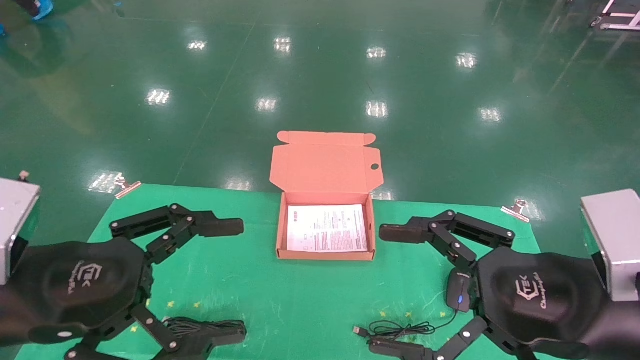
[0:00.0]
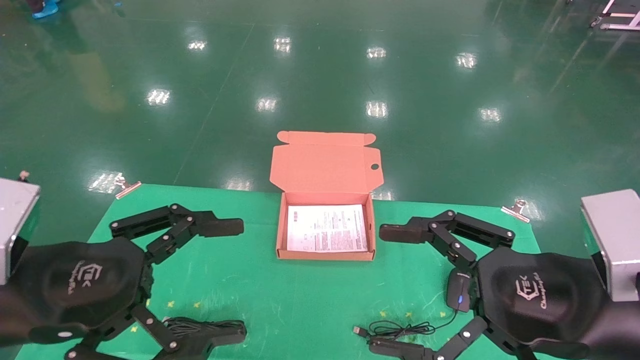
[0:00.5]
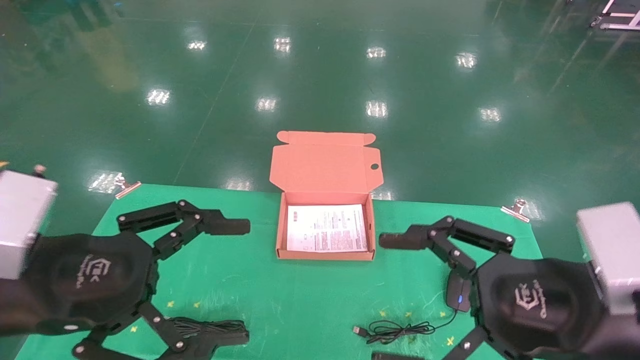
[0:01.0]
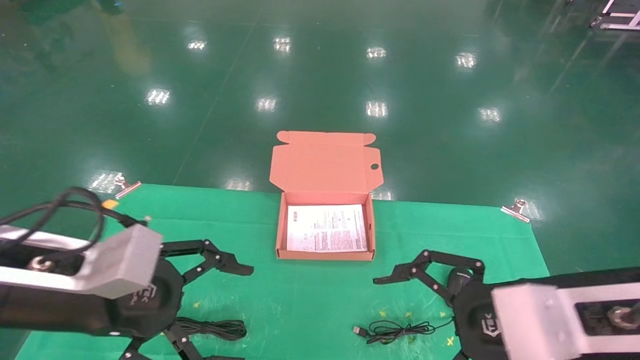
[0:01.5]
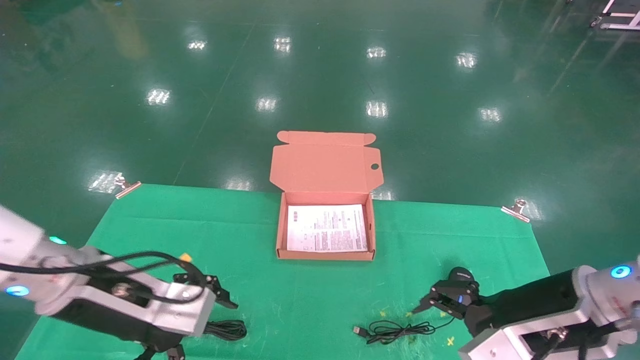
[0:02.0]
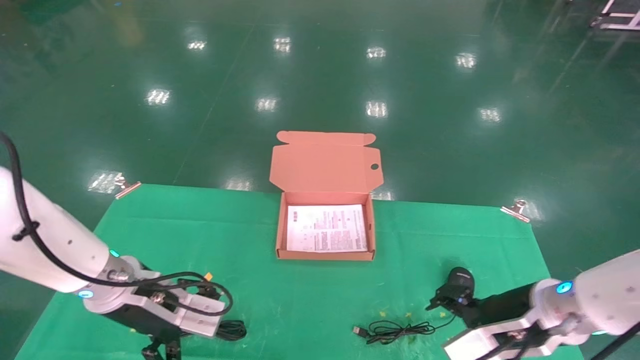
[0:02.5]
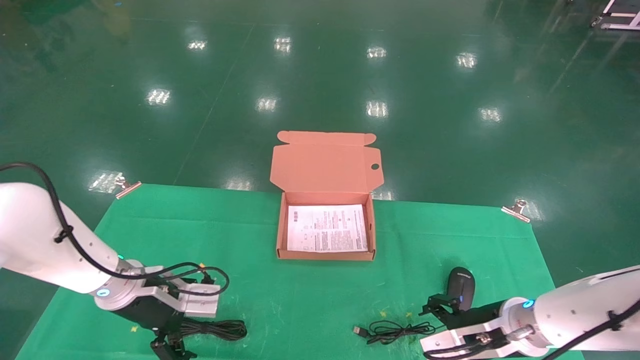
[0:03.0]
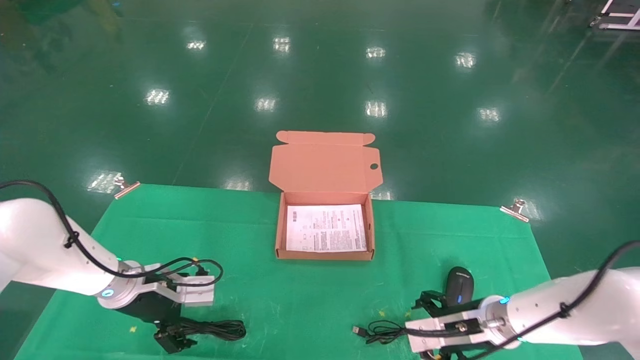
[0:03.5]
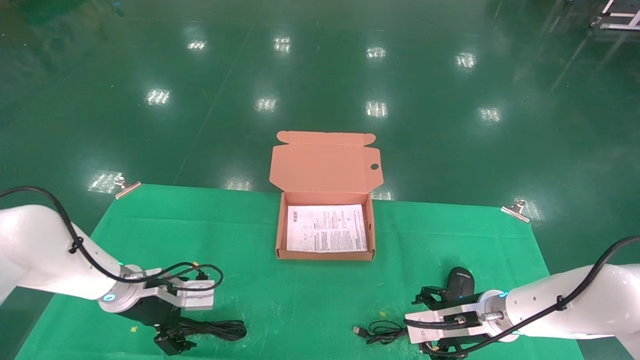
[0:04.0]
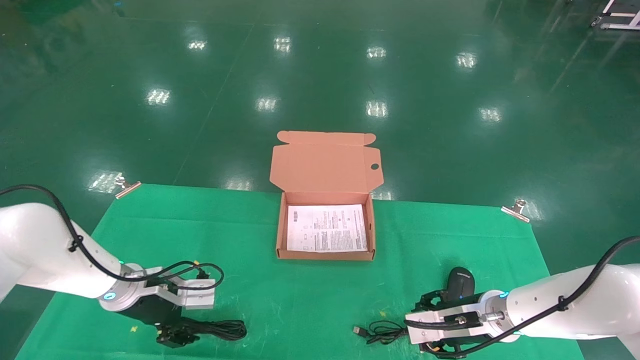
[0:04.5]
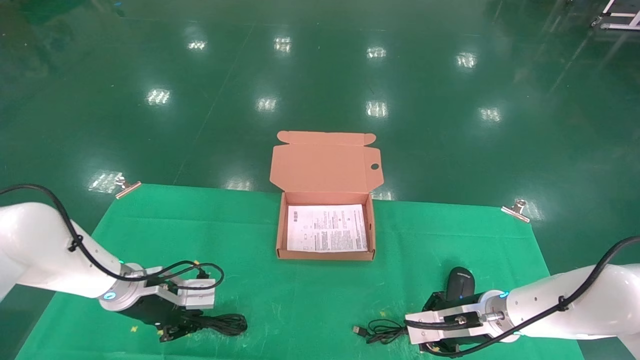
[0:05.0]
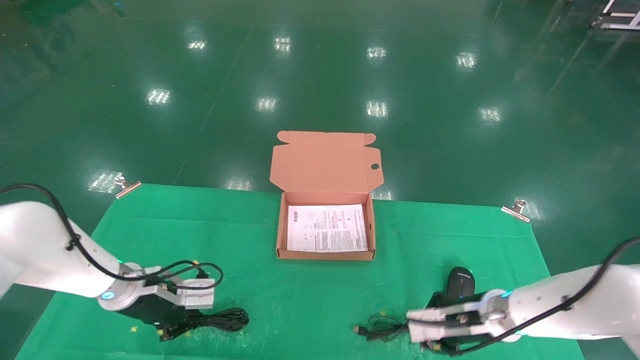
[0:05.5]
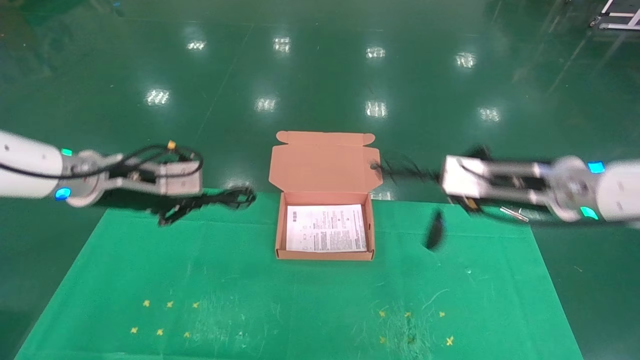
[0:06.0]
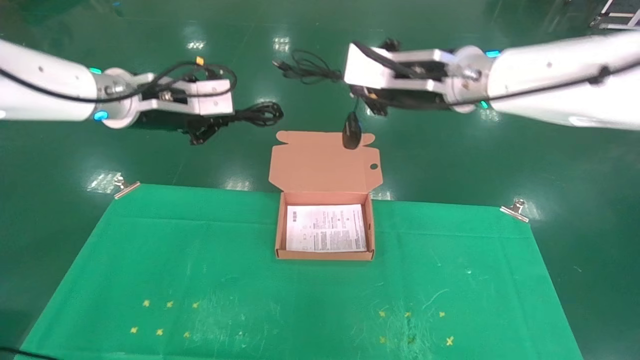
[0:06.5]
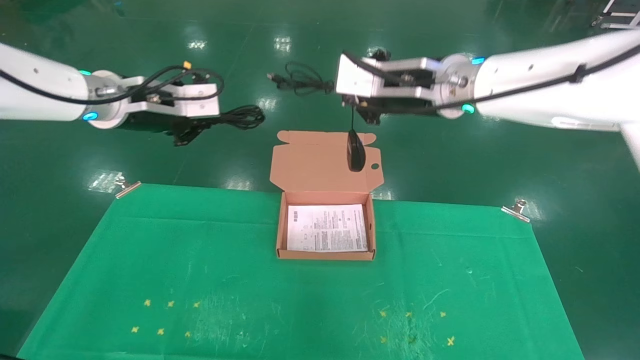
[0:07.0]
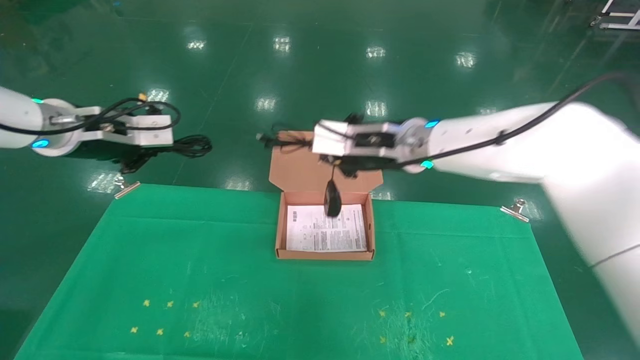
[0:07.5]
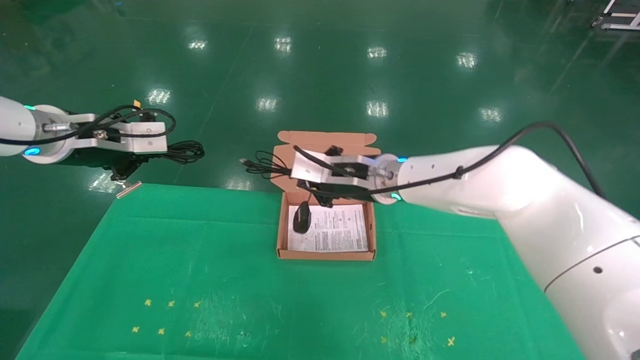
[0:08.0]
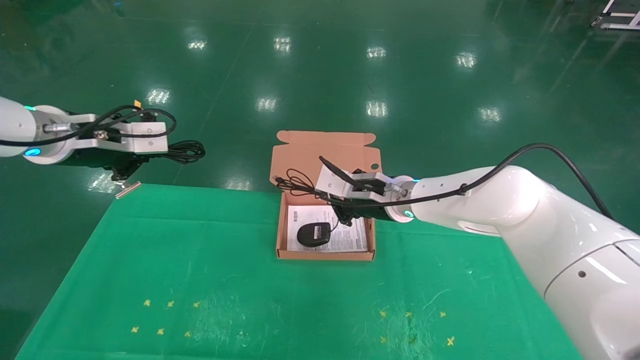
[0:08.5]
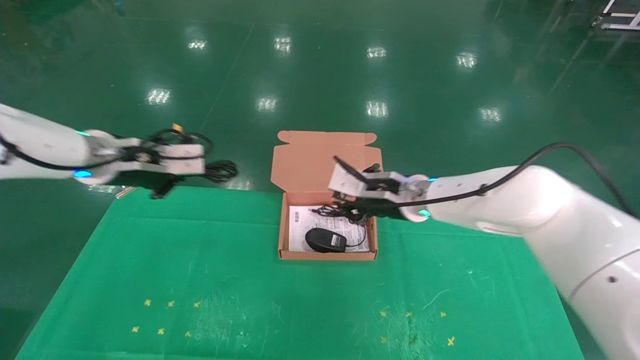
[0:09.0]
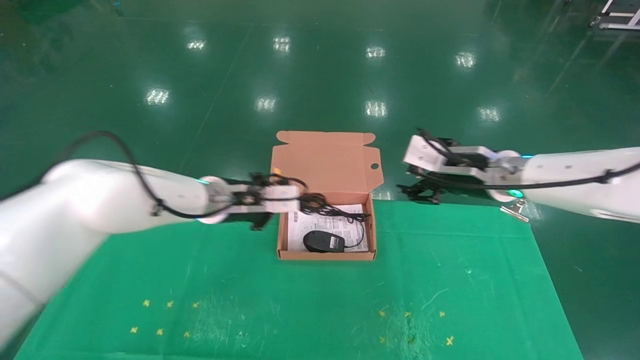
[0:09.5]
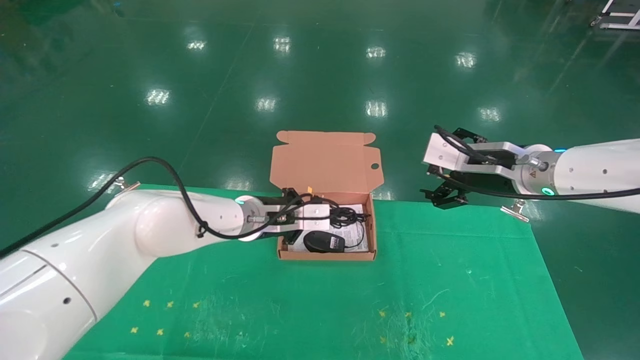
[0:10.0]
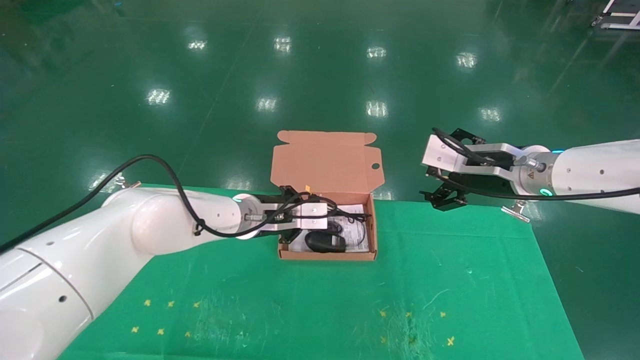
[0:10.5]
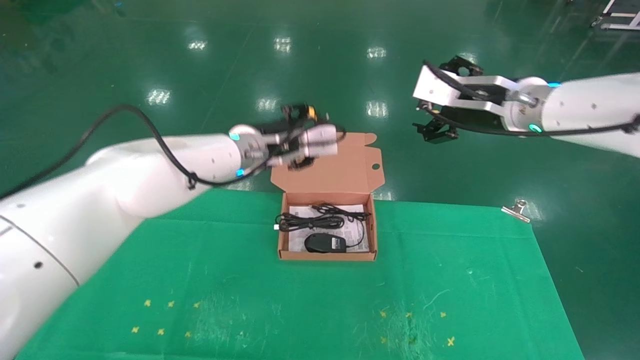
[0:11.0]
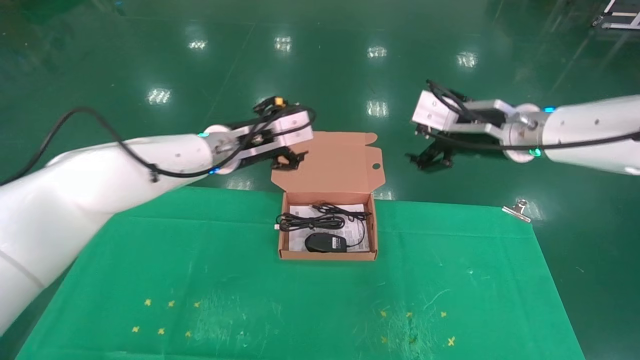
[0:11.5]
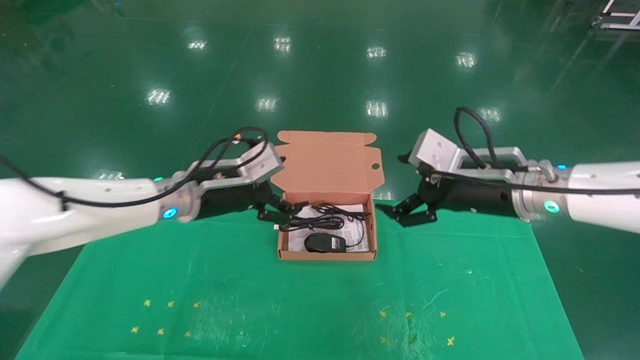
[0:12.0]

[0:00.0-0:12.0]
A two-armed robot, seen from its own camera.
Task of the whole recording: grasp data cable left put into box grasp mouse right put into box.
Step, 0:01.5 to 0:05.0: Grab and pick up both the mouse and power cord from the accessory packaging area at the same time.
Step, 0:05.5 to 0:10.0: Place the mouse and power cord into the box.
0:00.0 to 0:02.0: The two grippers go approximately 10 cm forward.
0:02.0 to 0:04.0: The left gripper is displaced forward and downward by some 20 cm, while the right gripper is displaced downward and forward by roughly 20 cm.
0:04.0 to 0:06.0: The grippers both shift upward by approximately 20 cm. The left gripper closes. The right gripper closes up.
0:06.0 to 0:08.0: The left gripper travels upward by roughly 5 cm. Meanwhile the right gripper heads to the left and forward, covering approximately 20 cm.
0:08.0 to 0:10.0: The left gripper goes approximately 25 cm to the right and downward, while the right gripper heads to the right, covering approximately 20 cm, and opens its fingers.
0:10.0 to 0:12.0: The left gripper goes approximately 10 cm to the left and backward, and opens its fingers; the right gripper reaches some 5 cm upward, then returns.

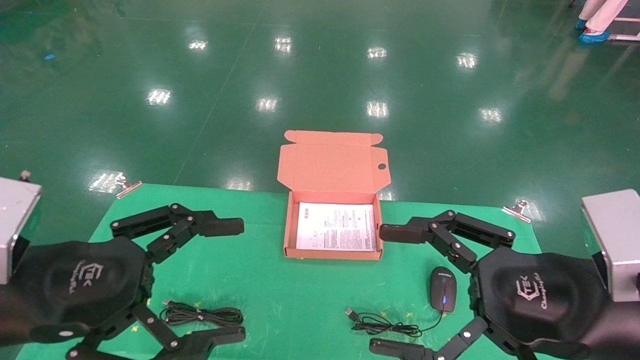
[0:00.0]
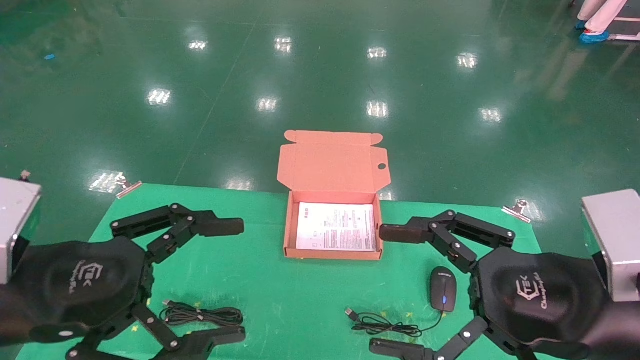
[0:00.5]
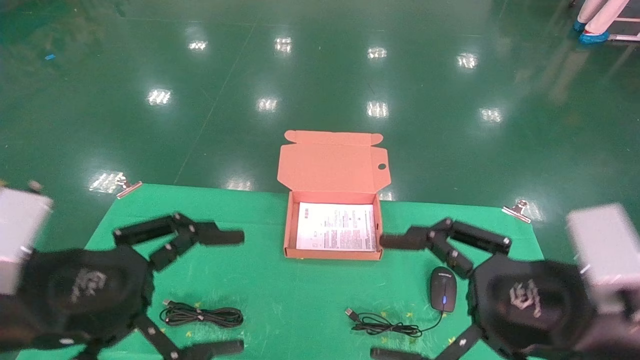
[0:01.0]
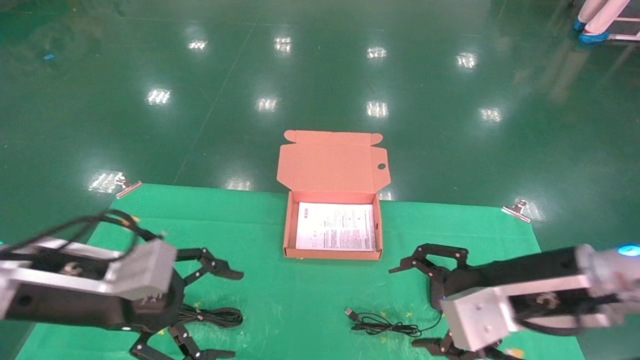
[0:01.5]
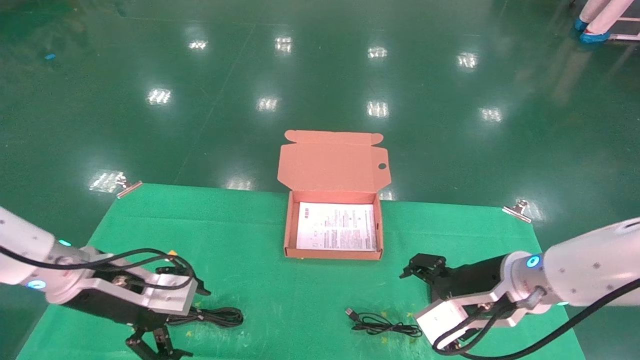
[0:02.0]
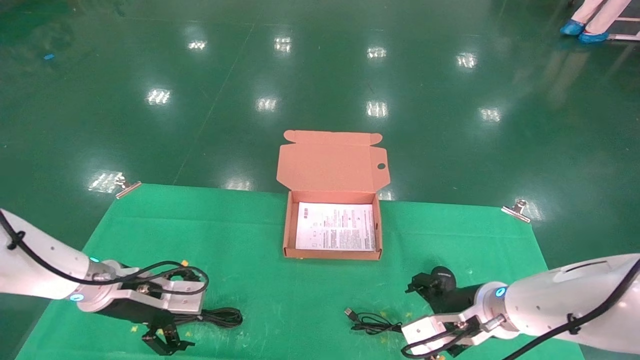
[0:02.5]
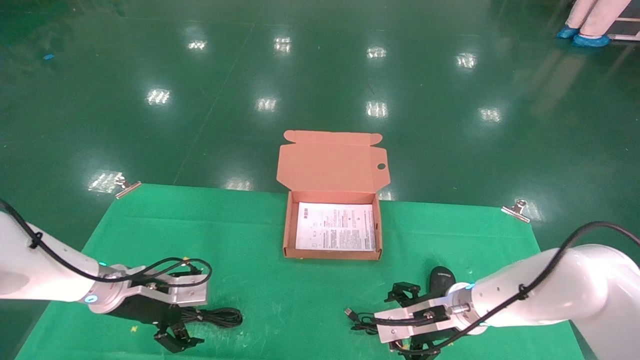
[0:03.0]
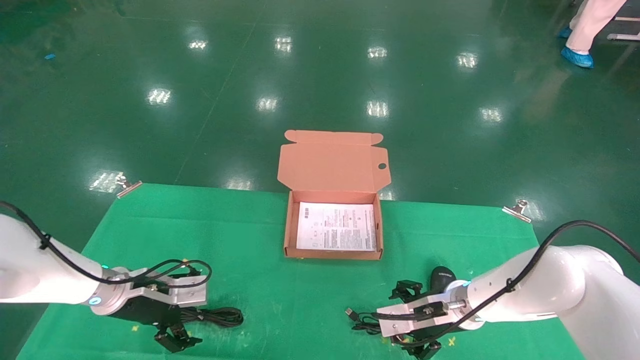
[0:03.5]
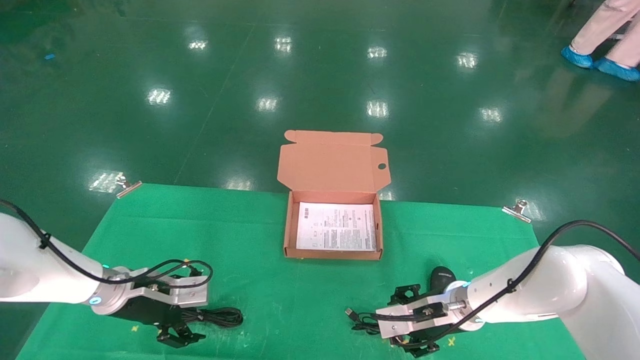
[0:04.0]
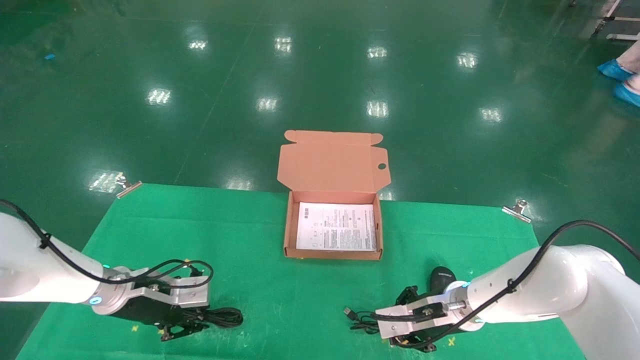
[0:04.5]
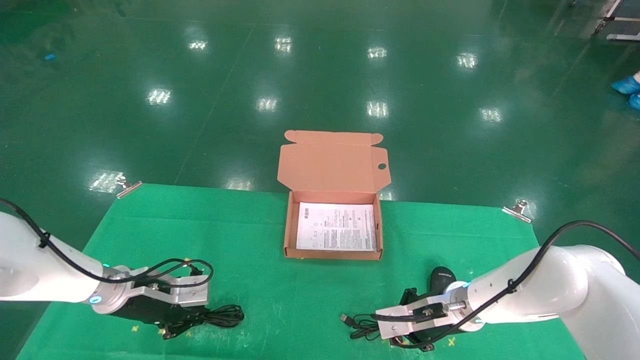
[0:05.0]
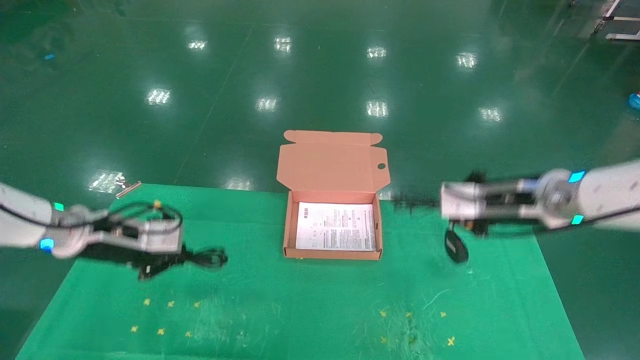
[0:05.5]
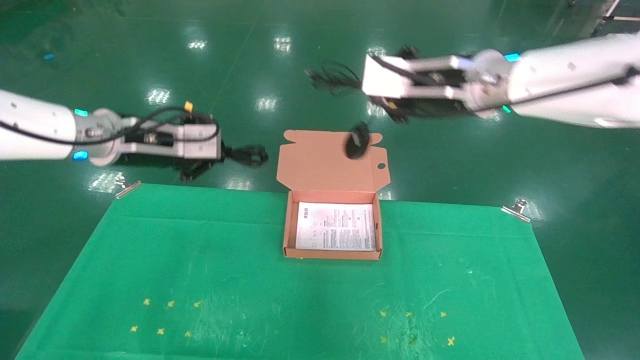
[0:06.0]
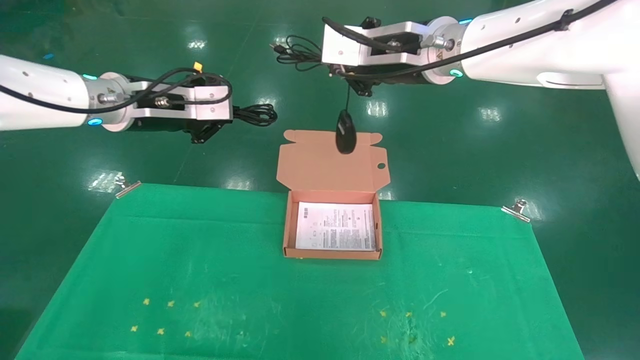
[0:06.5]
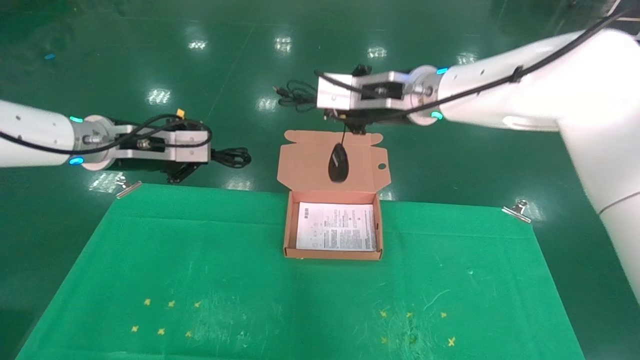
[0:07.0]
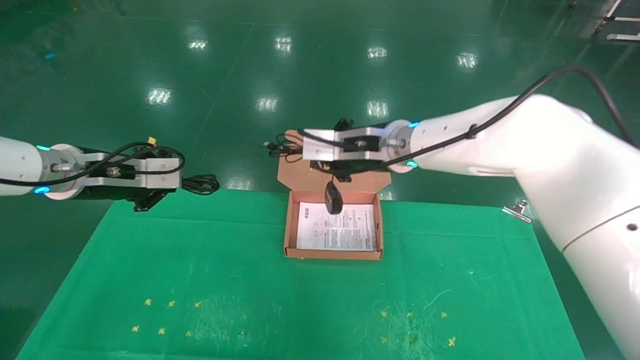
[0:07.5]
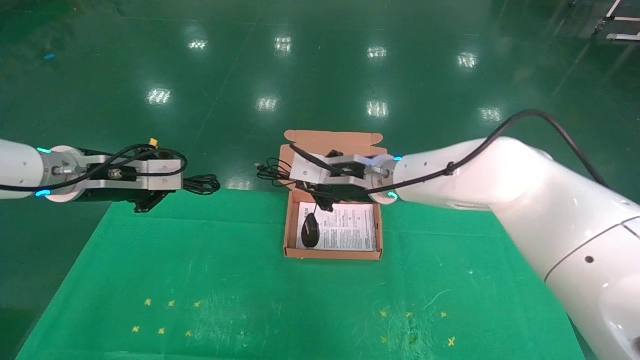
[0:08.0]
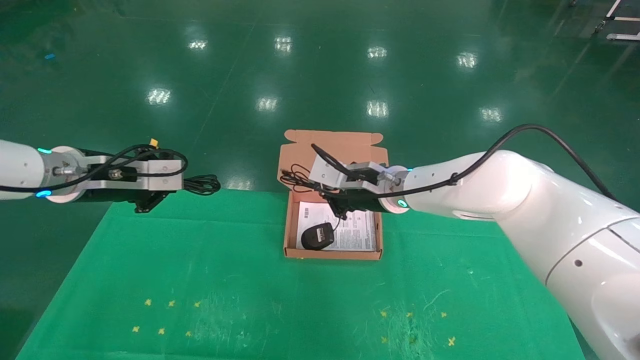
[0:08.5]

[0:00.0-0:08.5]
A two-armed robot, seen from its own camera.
Task of the whole recording: grasp data cable left put into box grasp mouse right put into box.
Step, 0:01.5 to 0:04.5: Grab and pick up both the mouse and power cord from the accessory packaging area at the same time.
0:00.0 to 0:02.0: Both grippers move forward and downward, approximately 20 cm.
0:02.0 to 0:04.0: Both grippers travel together downward and forward, about 10 cm. The left gripper closes up. Meanwhile the right gripper closes.
0:04.0 to 0:06.5: The grippers both shift upward by some 30 cm. The left gripper closes, while the right gripper closes its fingers.
0:06.5 to 0:08.5: The right gripper heads downward, covering about 20 cm. Meanwhile the left gripper goes some 10 cm downward and to the left.
